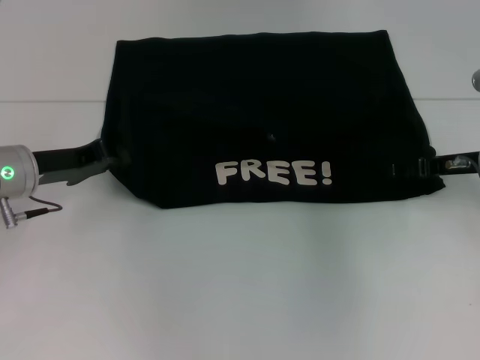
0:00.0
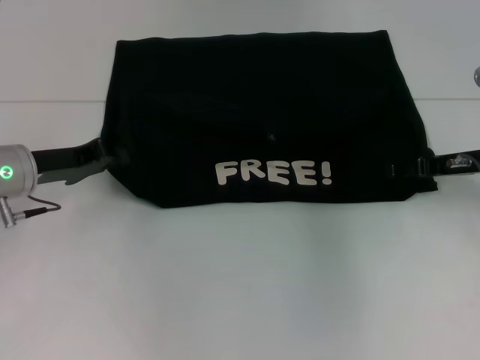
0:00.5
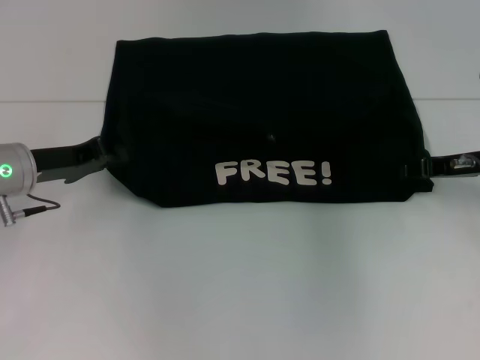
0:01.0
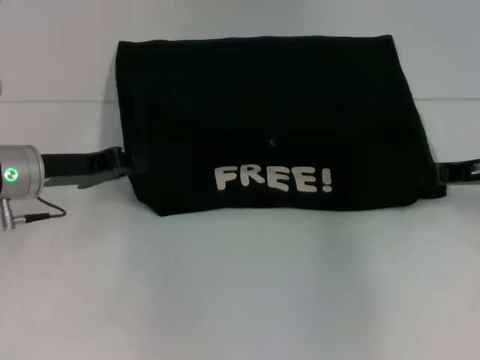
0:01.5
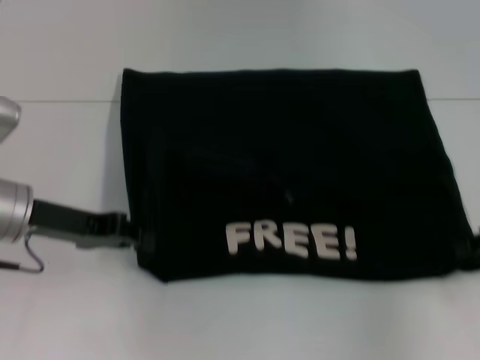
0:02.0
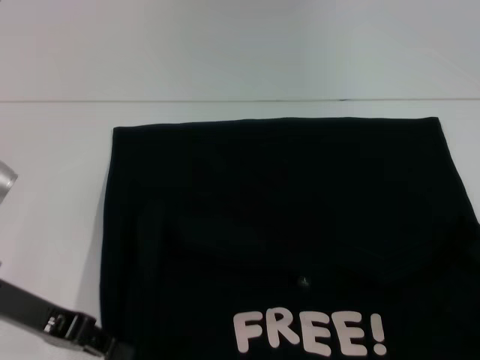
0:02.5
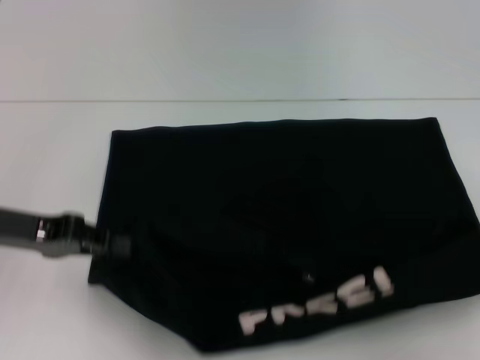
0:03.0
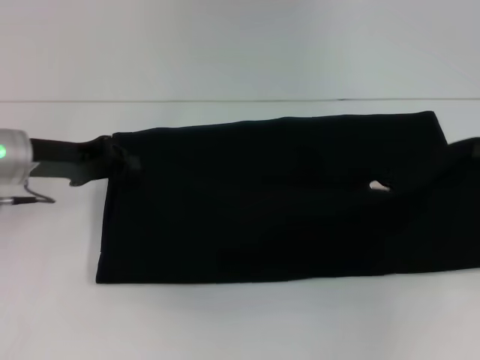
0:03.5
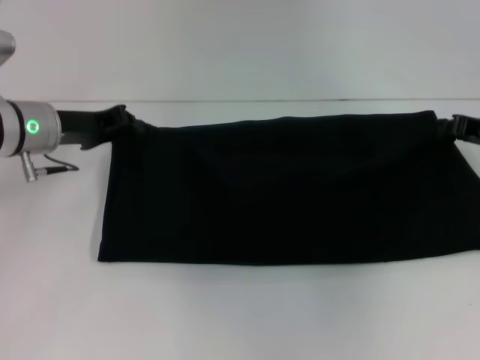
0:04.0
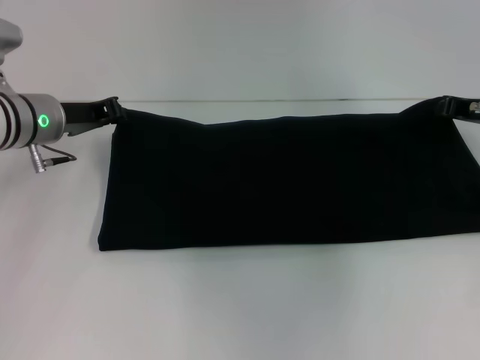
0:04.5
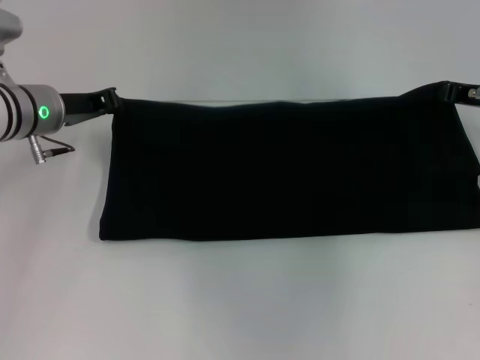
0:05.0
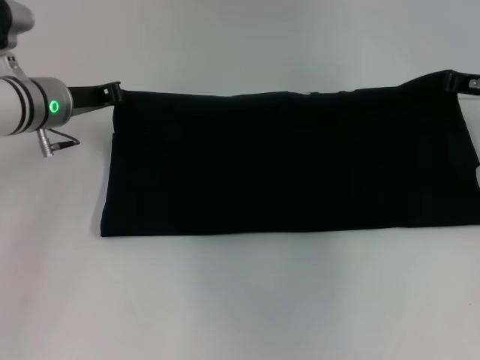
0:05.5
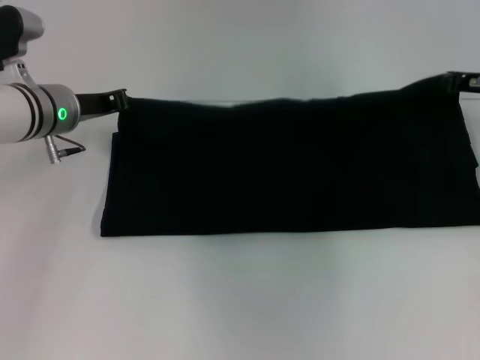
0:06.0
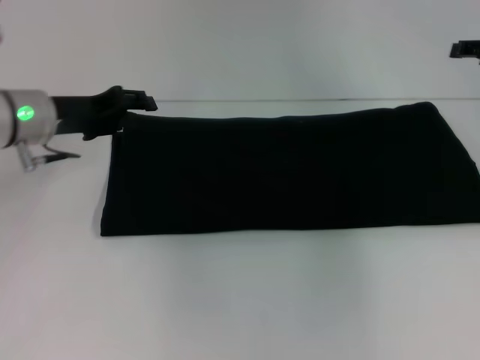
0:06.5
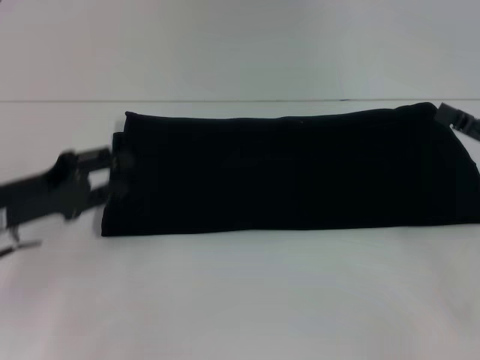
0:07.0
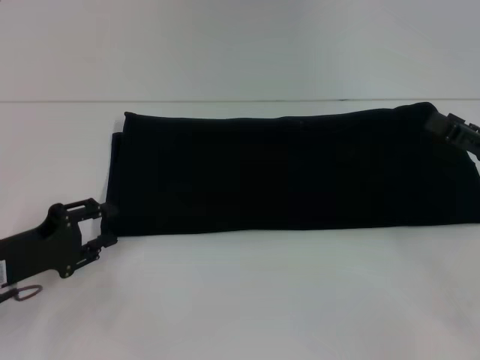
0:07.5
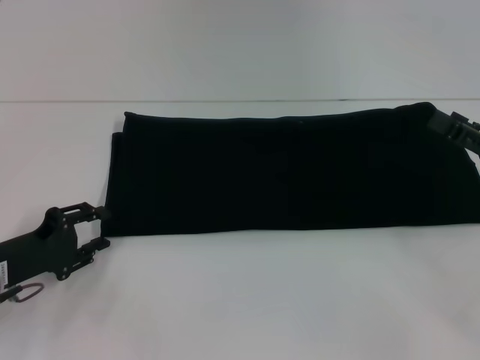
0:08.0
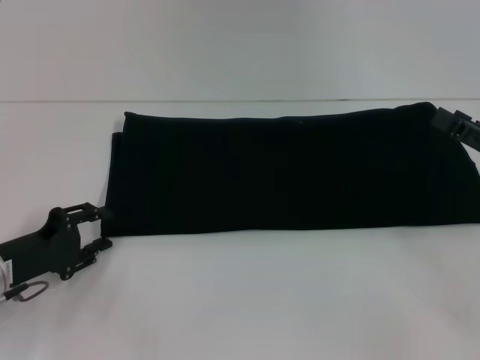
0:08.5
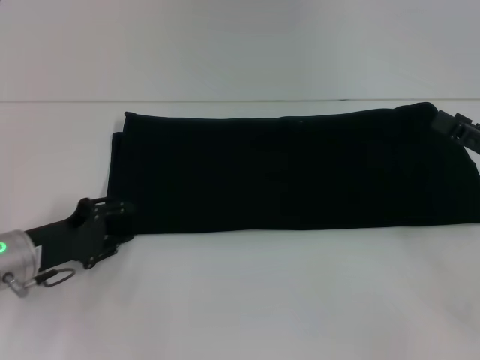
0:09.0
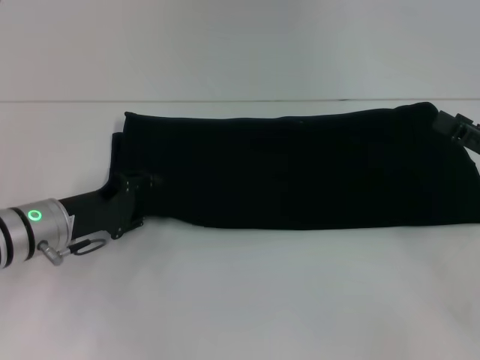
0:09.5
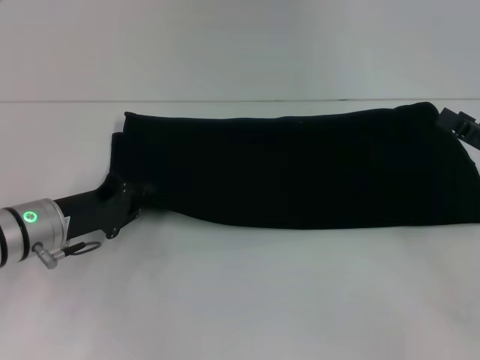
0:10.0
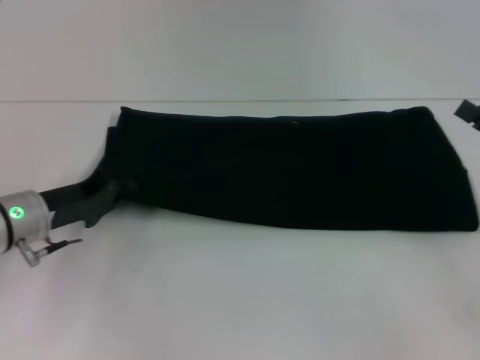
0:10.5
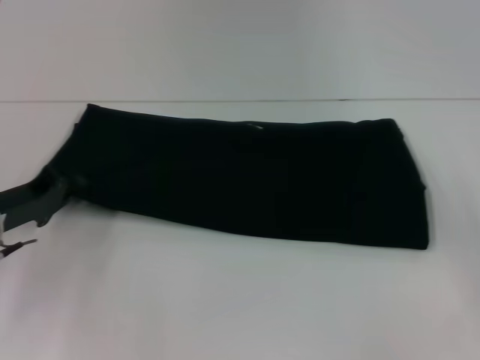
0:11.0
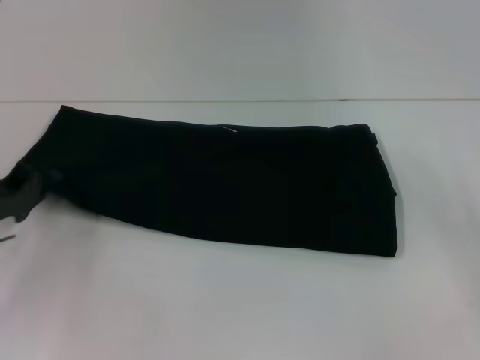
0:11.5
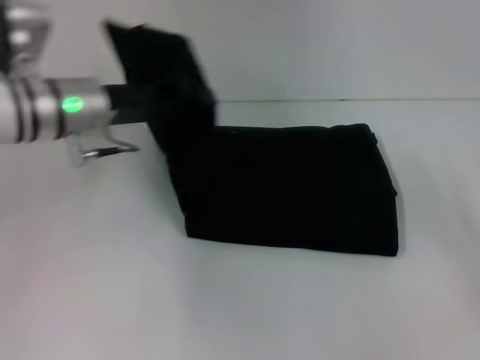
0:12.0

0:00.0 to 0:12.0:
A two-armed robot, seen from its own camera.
Step, 0:00.0 to 0:02.5: Pull the clothes with your left hand.
Step, 0:00.0 to 0:02.5: Pull the clothes with your right hand.
Step, 0:03.0 to 0:06.0: Fold the clothes with your right hand.
0:00.0 to 0:02.0: The right gripper travels backward and to the right by some 10 cm, and closes.
0:02.0 to 0:04.0: The grippers both shift forward by roughly 10 cm.
0:04.0 to 0:06.0: The right gripper moves some 5 cm.
0:06.0 to 0:08.0: The left gripper heads backward, downward and to the left, covering approximately 20 cm, and opens. The right gripper travels backward by approximately 15 cm, and opens.
0:08.0 to 0:10.0: The left gripper moves forward and to the right, approximately 10 cm.
0:10.0 to 0:12.0: The left gripper is displaced upward and forward by about 15 cm, and closes; the right gripper moves to the right, some 5 cm.

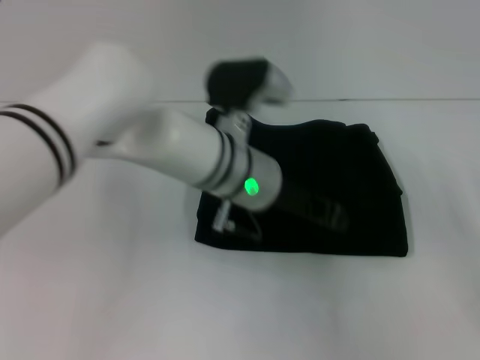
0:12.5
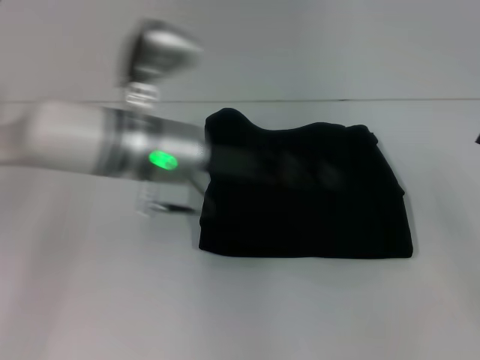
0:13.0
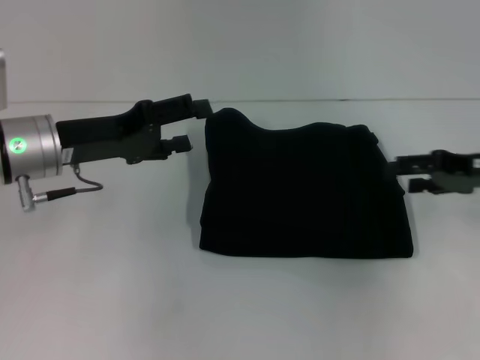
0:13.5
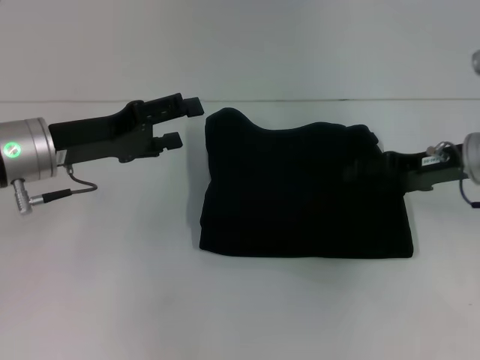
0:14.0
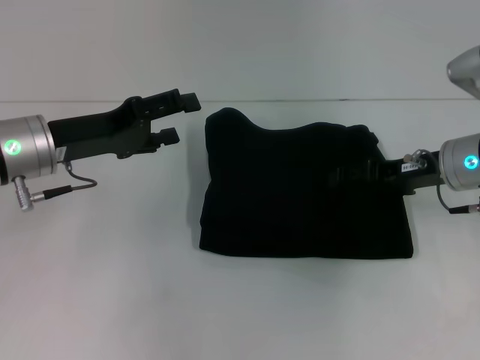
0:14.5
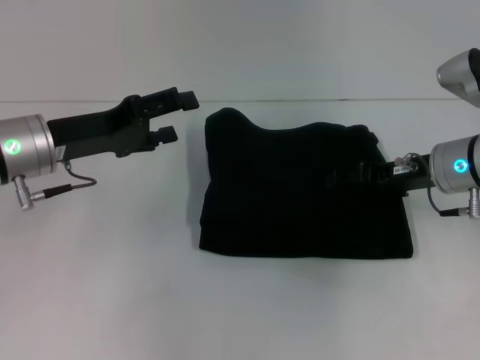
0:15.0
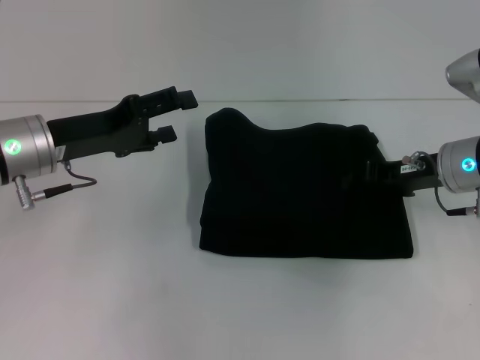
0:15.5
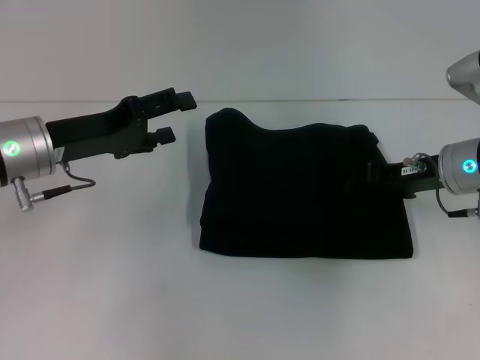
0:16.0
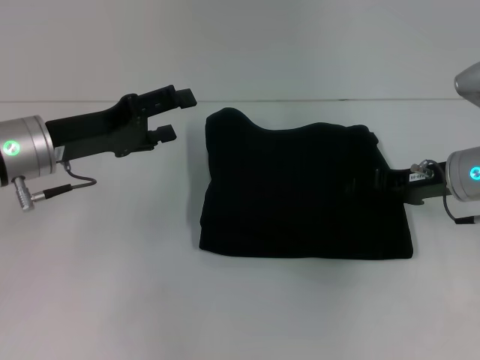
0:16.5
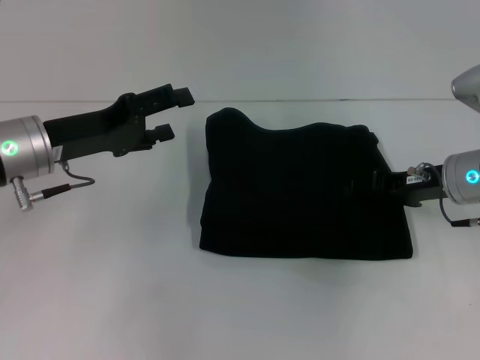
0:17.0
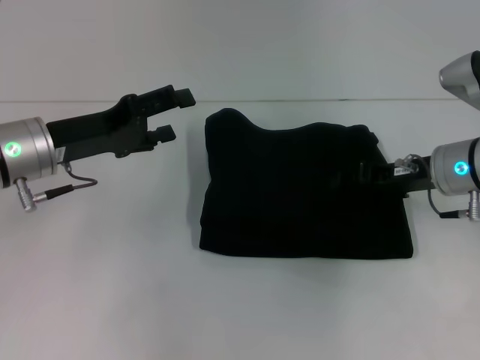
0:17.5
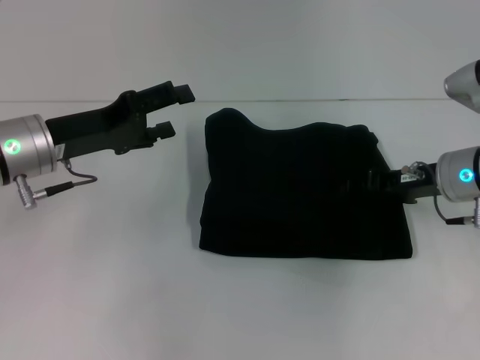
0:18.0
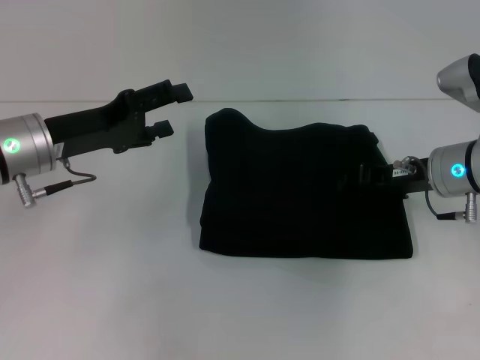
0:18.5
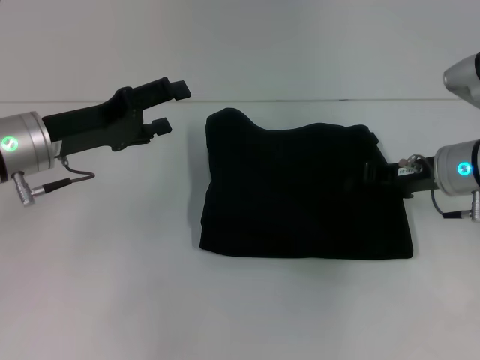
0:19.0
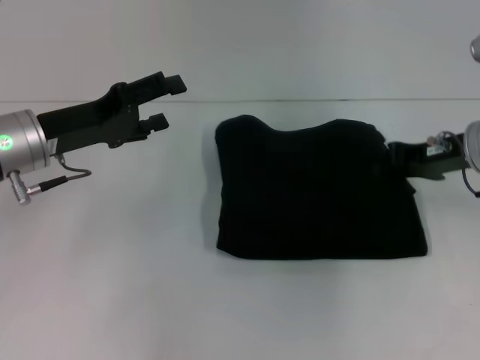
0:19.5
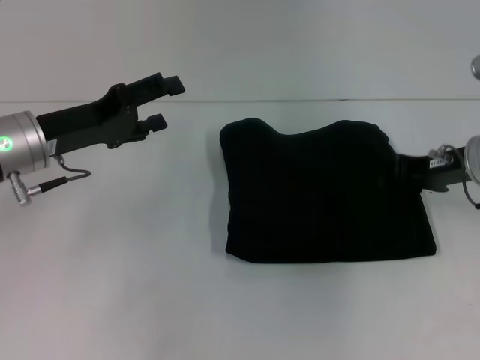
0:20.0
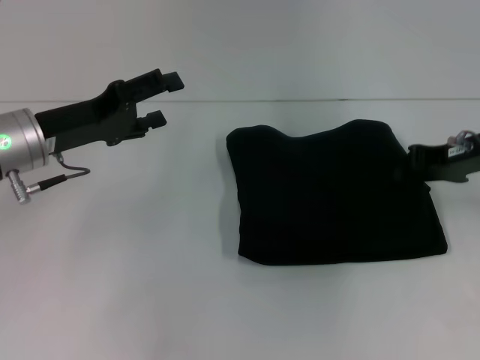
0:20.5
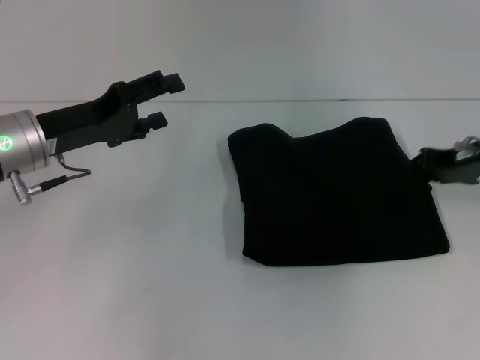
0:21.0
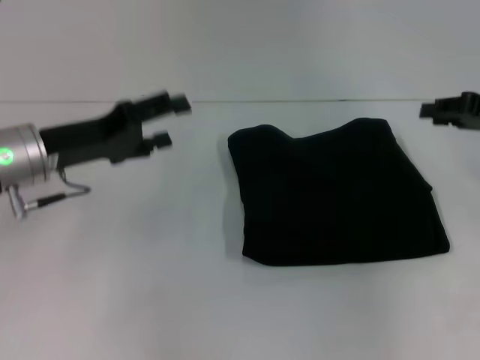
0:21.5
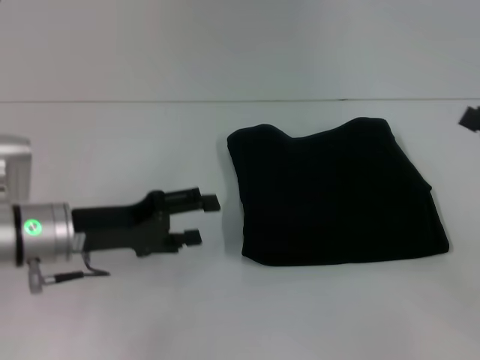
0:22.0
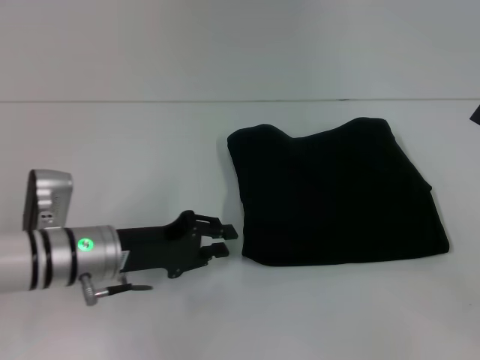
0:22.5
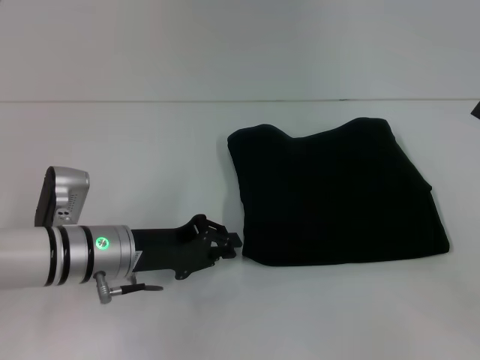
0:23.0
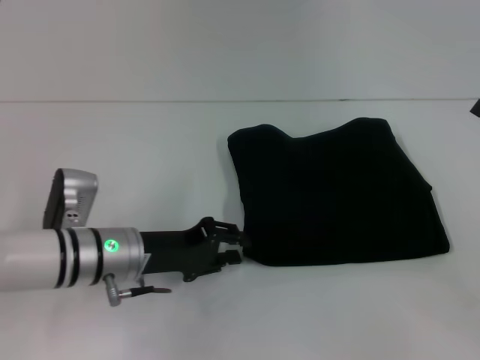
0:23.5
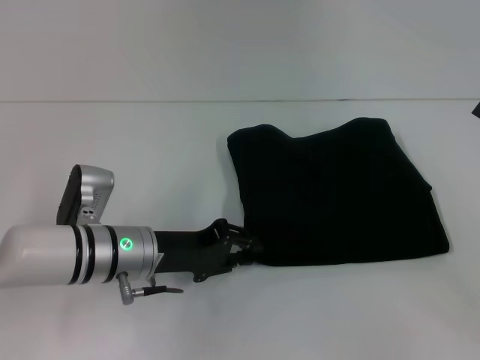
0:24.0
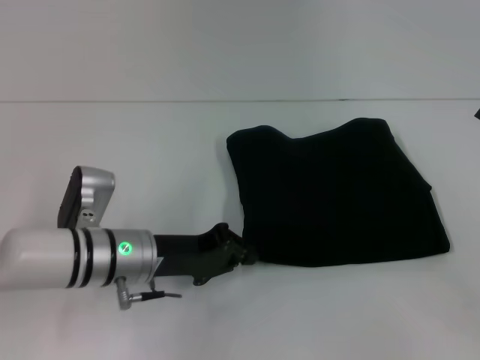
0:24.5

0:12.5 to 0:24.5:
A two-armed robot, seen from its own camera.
0:12.5 to 0:14.5: The left gripper goes some 20 cm to the left, and opens up, while the right gripper heads to the left and forward, covering about 20 cm.
0:14.5 to 0:18.5: There are only small adjustments of the grippers.
0:18.5 to 0:20.5: The right gripper moves some 5 cm.
0:20.5 to 0:22.5: The right gripper moves backward and to the right, about 15 cm, and opens up, while the left gripper heads downward and to the right, covering approximately 10 cm.
0:22.5 to 0:24.5: The left gripper closes up.

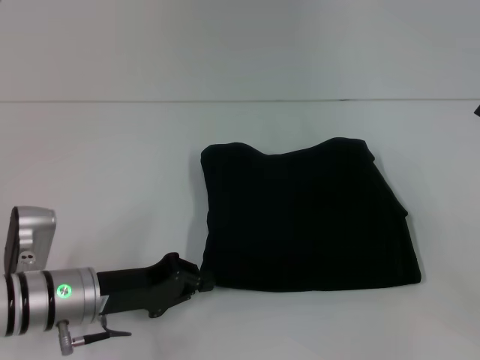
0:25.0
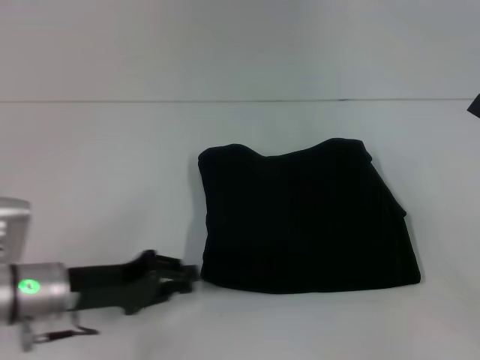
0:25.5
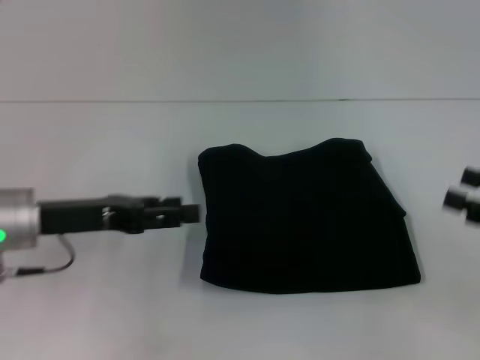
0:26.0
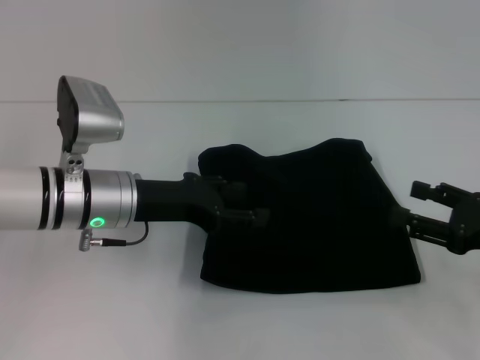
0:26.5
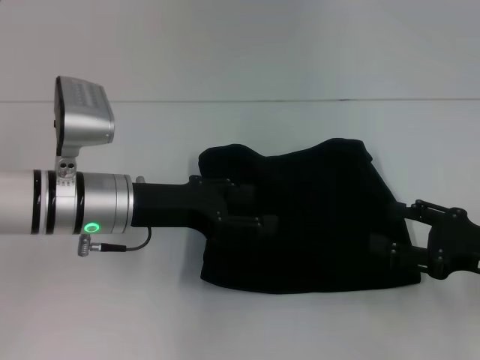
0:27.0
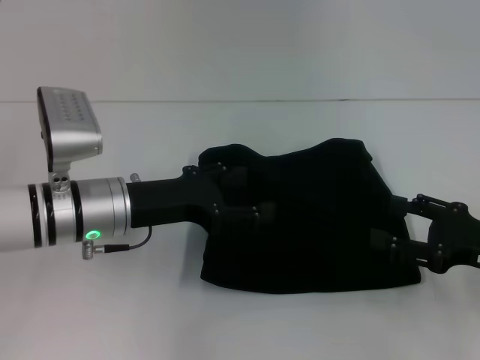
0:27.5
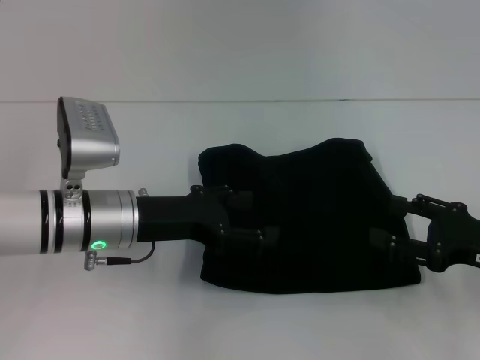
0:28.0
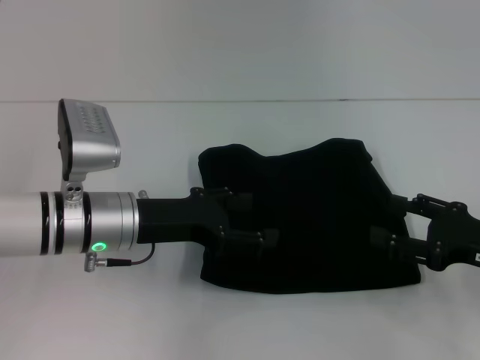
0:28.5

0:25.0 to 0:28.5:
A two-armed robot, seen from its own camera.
0:25.0 to 0:27.0: The left gripper goes some 10 cm upward and forward, and opens up. Meanwhile the right gripper shifts roughly 5 cm to the left.
0:27.0 to 0:28.5: There are only small adjustments of the grippers.
